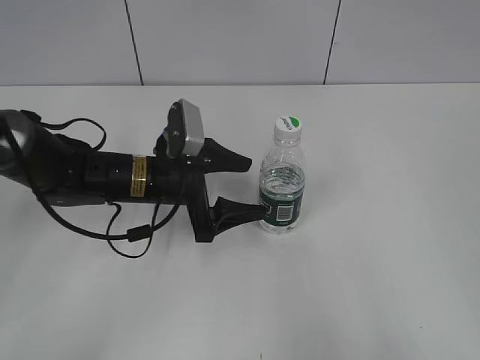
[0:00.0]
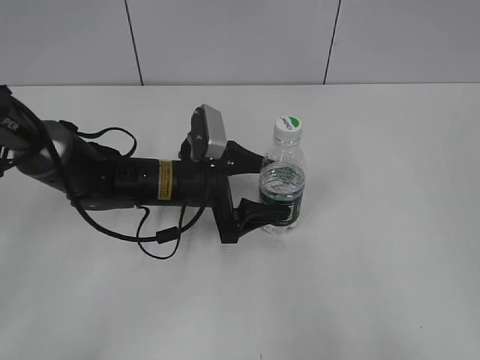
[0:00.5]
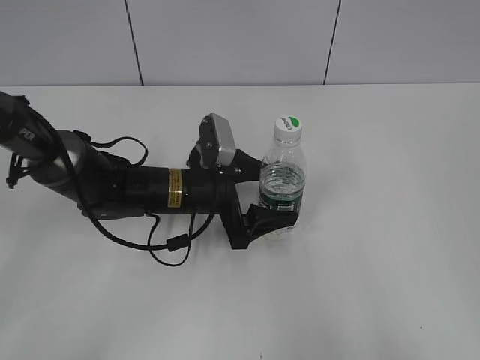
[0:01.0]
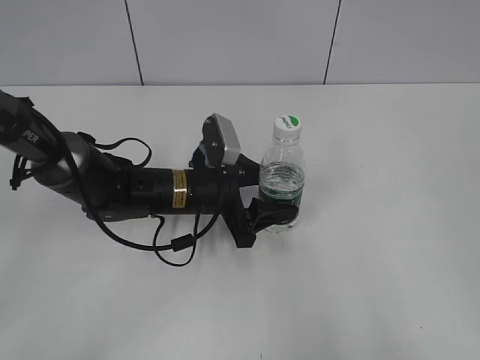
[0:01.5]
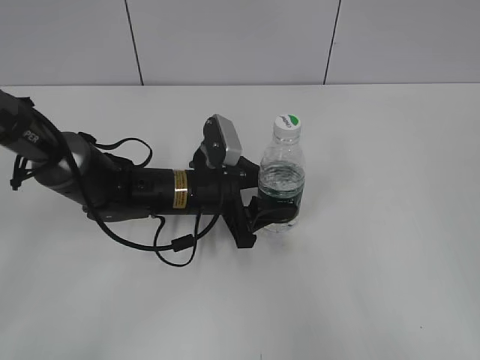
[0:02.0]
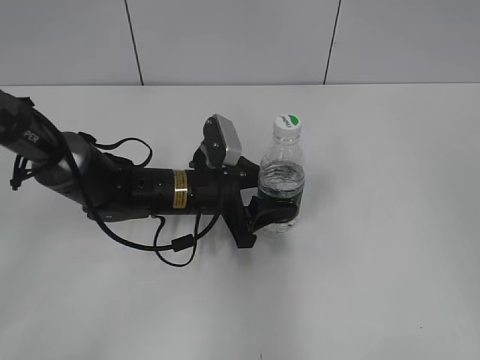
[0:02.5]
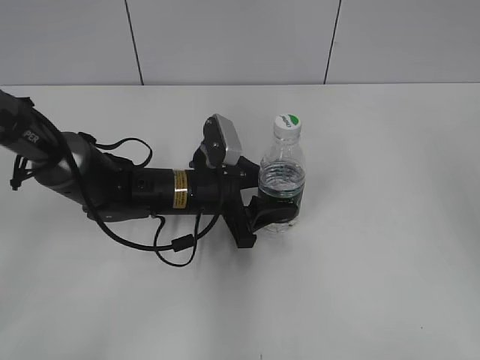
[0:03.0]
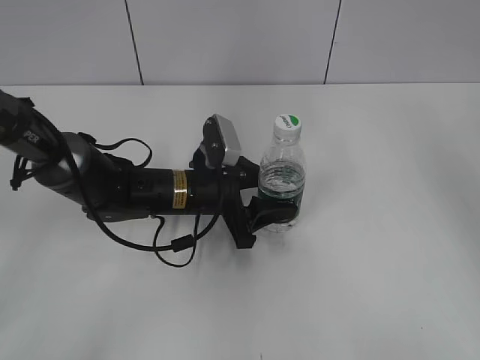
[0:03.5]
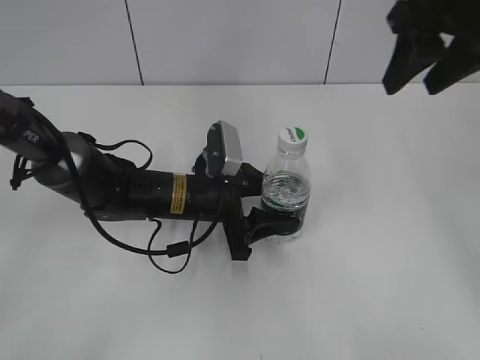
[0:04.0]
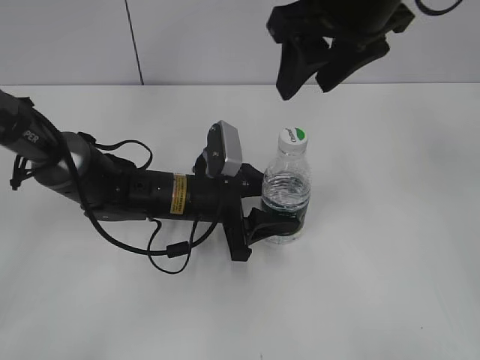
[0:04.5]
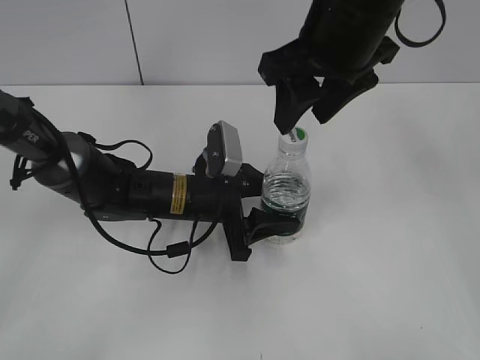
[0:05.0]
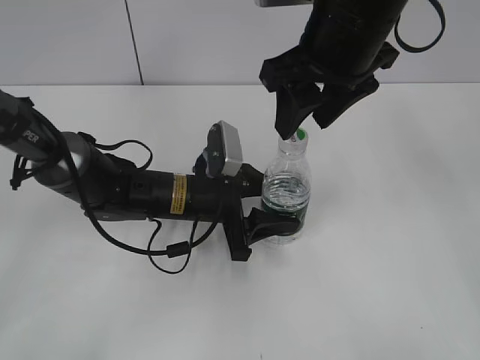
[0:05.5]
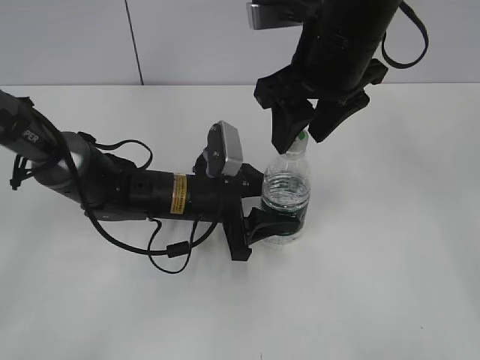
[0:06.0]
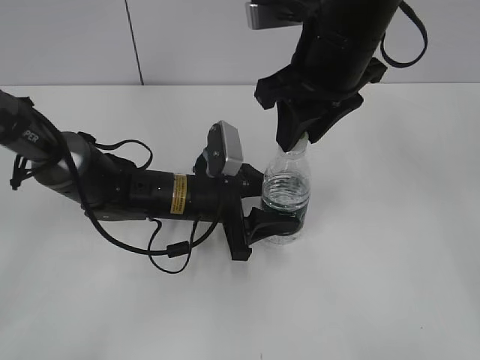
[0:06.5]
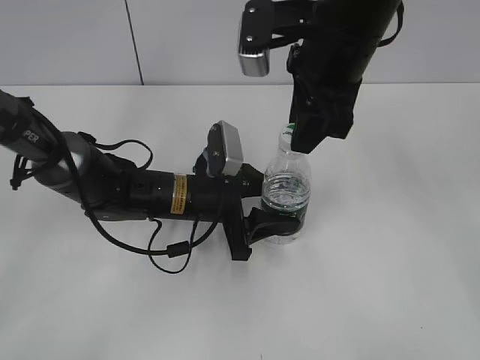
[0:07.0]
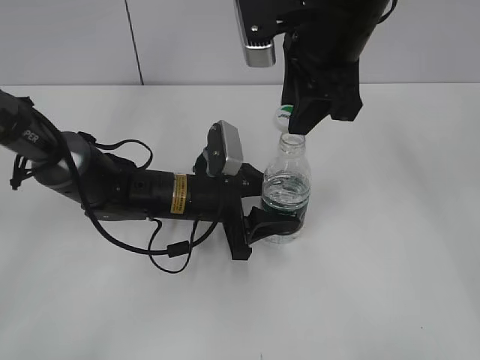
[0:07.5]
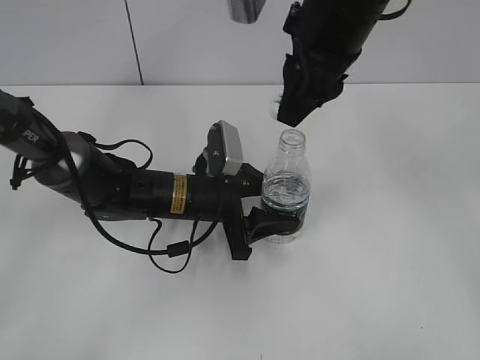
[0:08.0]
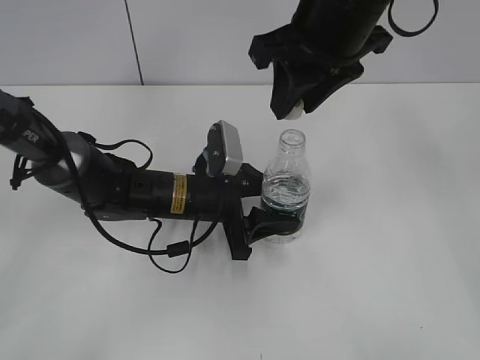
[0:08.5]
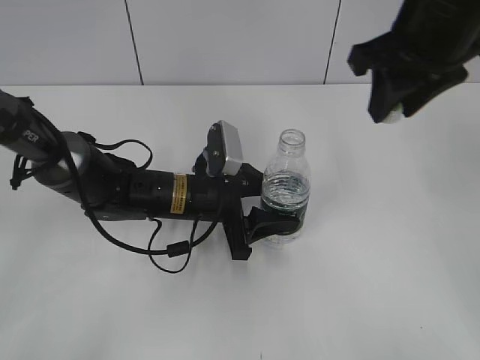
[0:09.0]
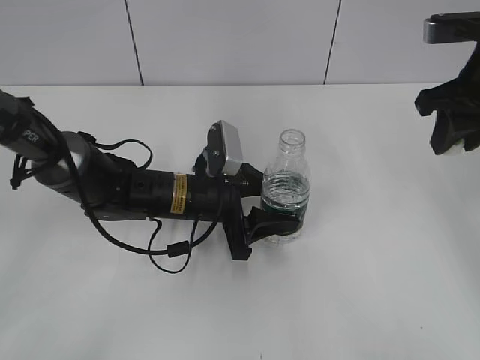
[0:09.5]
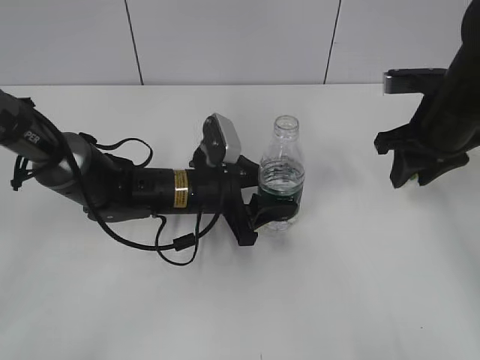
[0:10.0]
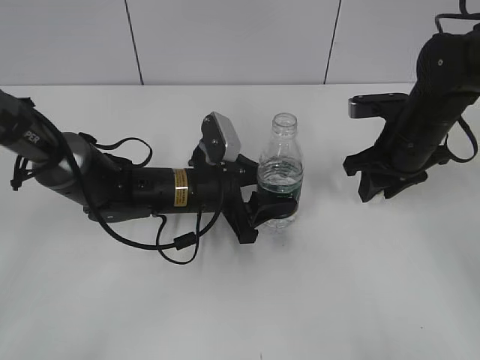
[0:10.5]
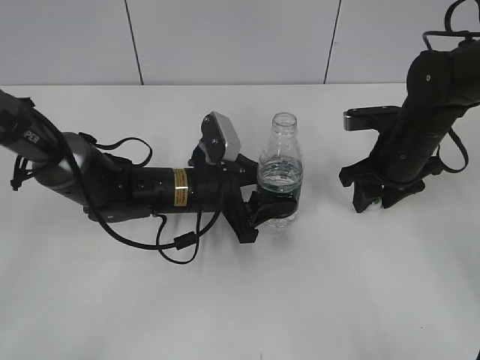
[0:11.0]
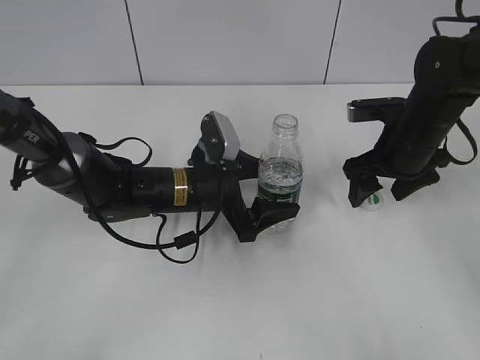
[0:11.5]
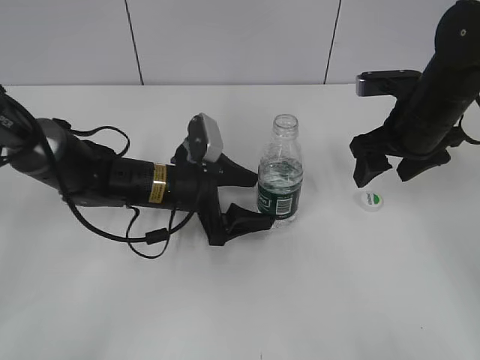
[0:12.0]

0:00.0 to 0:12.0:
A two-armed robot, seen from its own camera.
Step, 0:02.0 to 0:07.5: Unscrew the bottle cap with the right gripper while holding the bottle with the left gripper.
Step, 0:08.0 to 0:11.0: Place the bottle cap on the table with the right gripper.
0:00.0 to 0:02.0: The left gripper changes place by approximately 5 cm, and closes its fingers.
0:02.0 to 0:04.0: The right gripper heads forward, covering about 35 cm.
0:04.0 to 0:06.0: The right gripper heads to the left and downward, covering roughly 15 cm.
0:06.0 to 0:08.0: The right gripper closes up.
0:08.0 to 0:10.0: The right gripper travels to the right and downward by approximately 20 cm.
0:10.0 to 0:12.0: The left gripper opens up, while the right gripper opens its fingers.

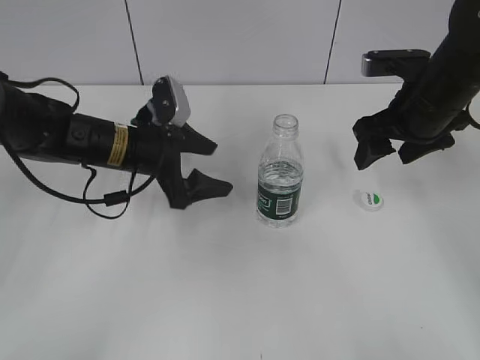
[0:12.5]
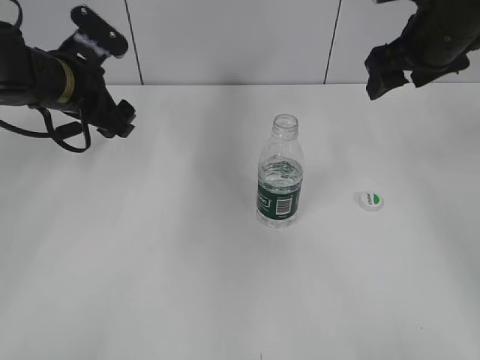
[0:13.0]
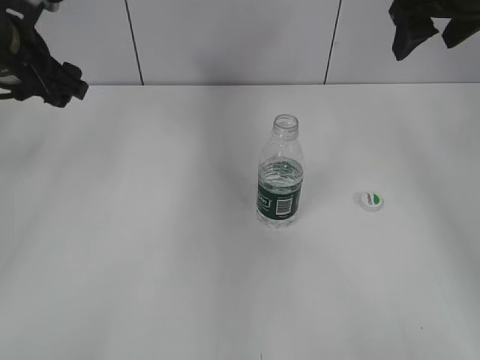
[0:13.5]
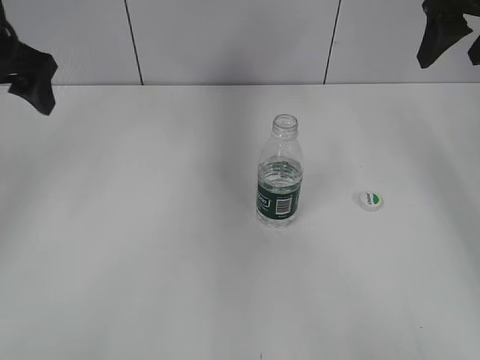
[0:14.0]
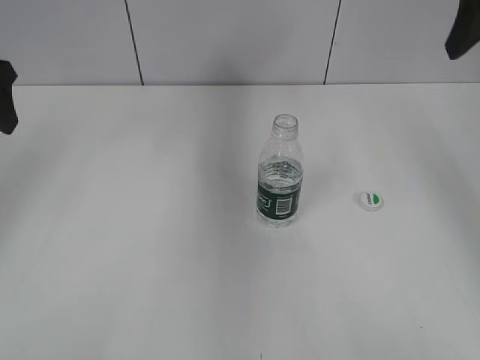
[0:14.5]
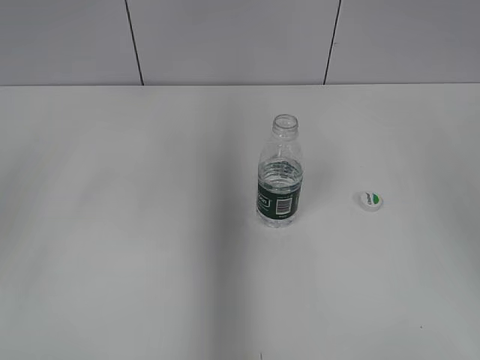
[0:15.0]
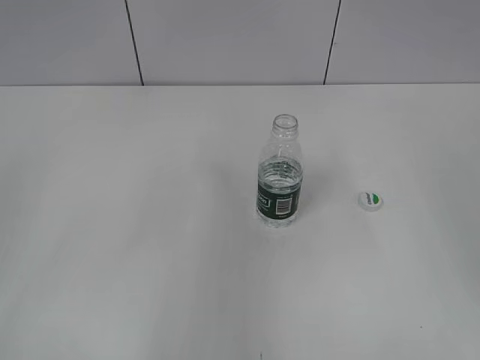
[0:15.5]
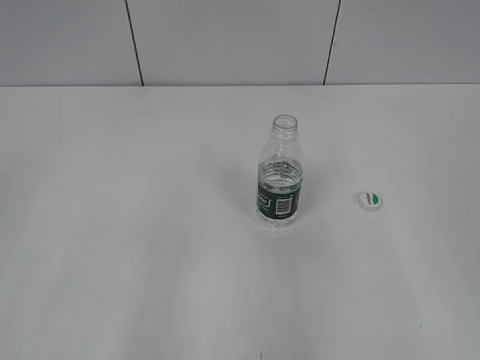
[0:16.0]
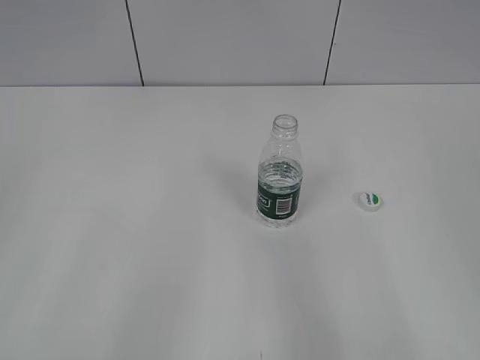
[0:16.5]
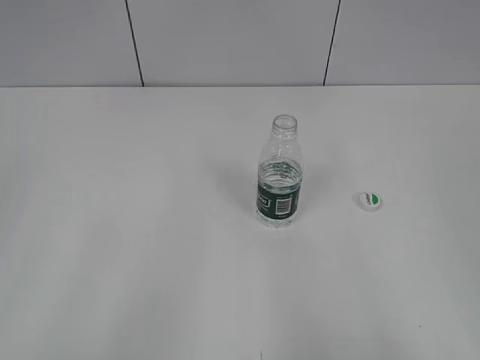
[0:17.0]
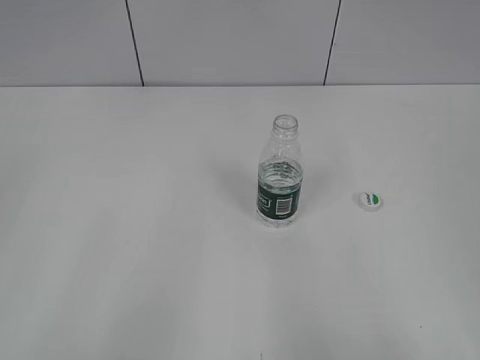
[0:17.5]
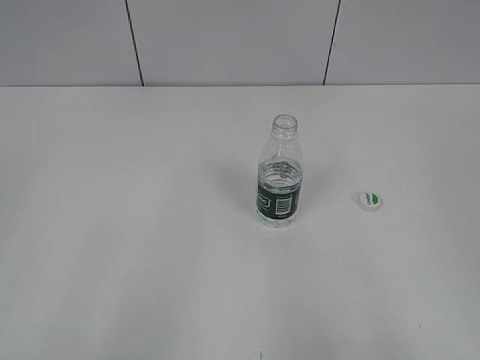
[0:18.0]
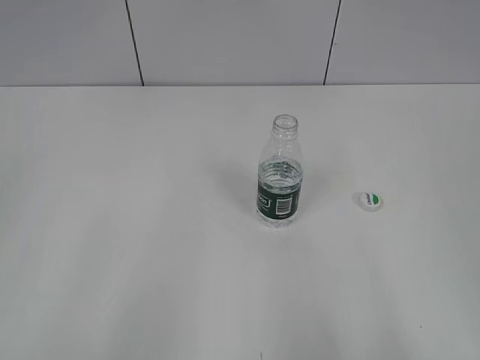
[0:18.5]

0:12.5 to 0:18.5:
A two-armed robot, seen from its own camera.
0:12.5 to 0:14.5: The left gripper is displaced upward and to the left by approximately 25 cm, while the right gripper goes roughly 15 cm upward.
0:14.5 to 0:16.5: Both grippers move backward, roughly 30 cm.

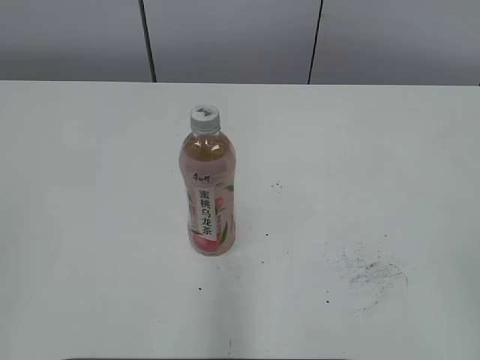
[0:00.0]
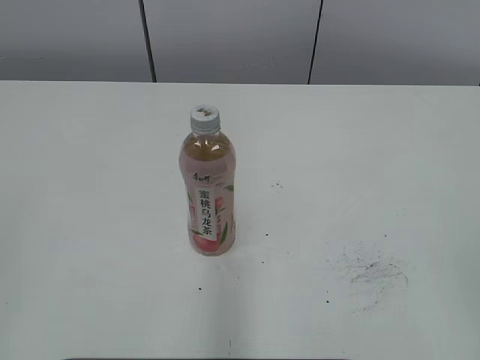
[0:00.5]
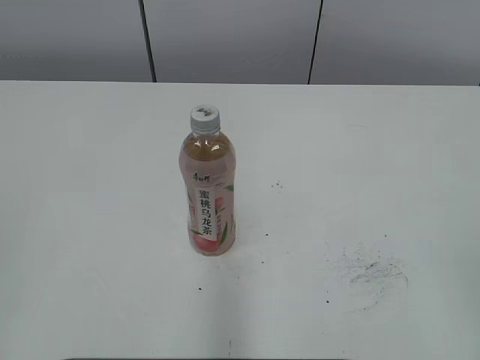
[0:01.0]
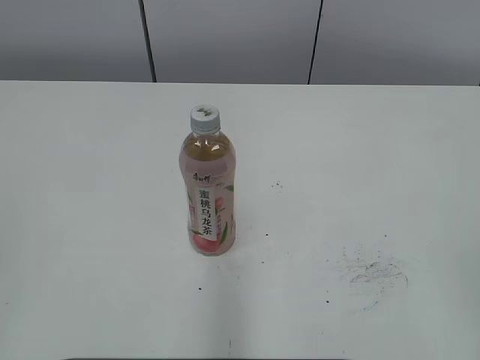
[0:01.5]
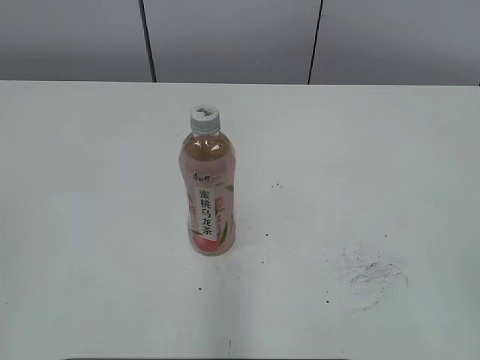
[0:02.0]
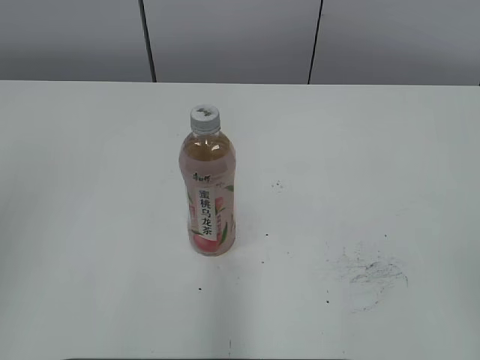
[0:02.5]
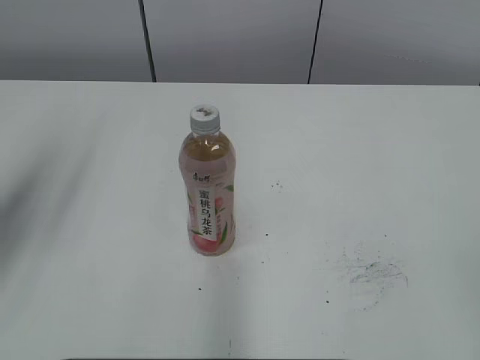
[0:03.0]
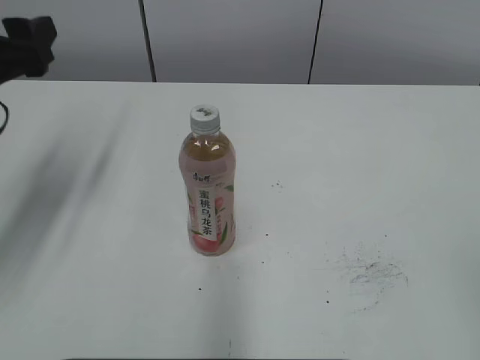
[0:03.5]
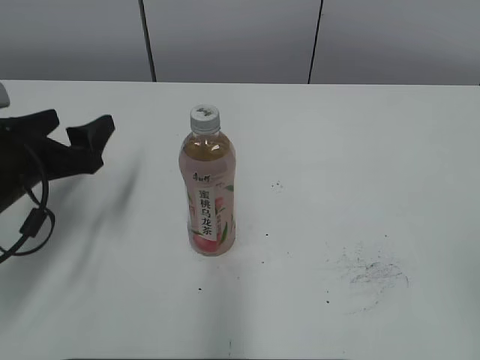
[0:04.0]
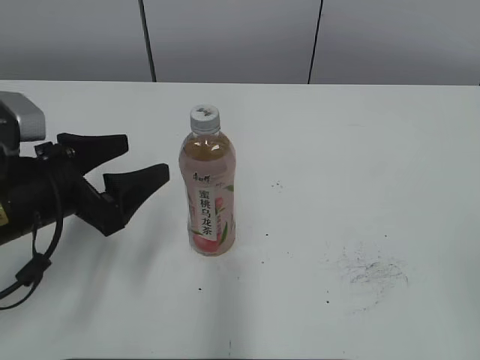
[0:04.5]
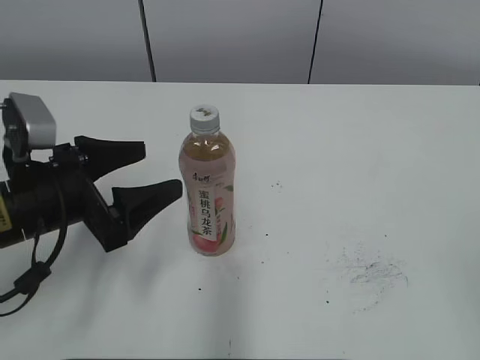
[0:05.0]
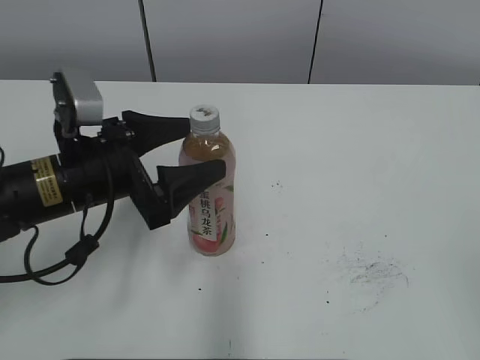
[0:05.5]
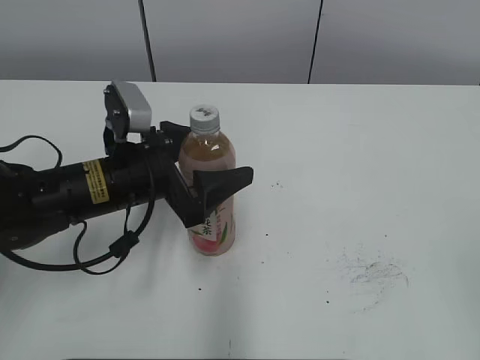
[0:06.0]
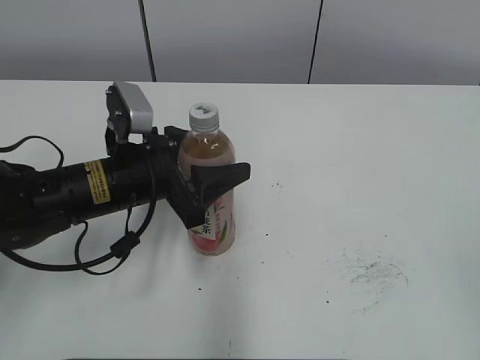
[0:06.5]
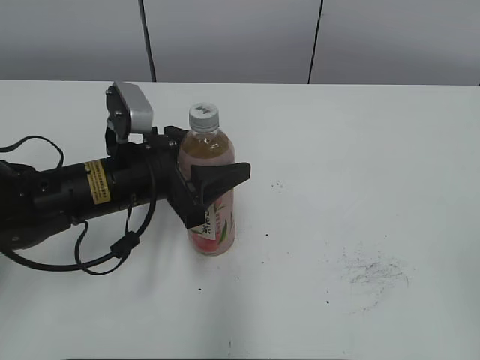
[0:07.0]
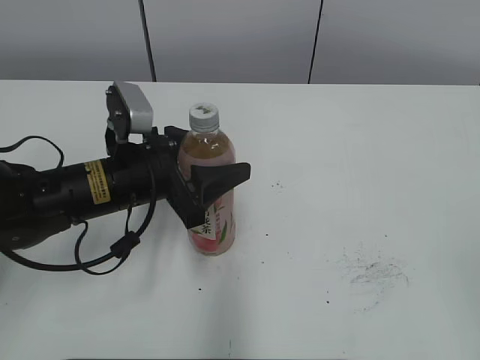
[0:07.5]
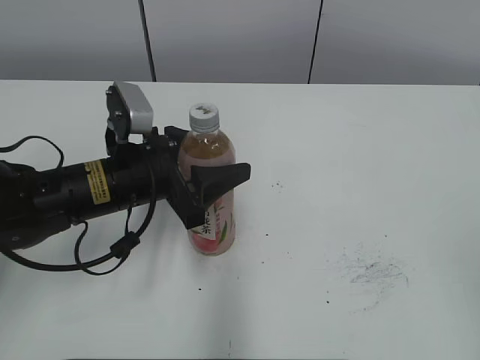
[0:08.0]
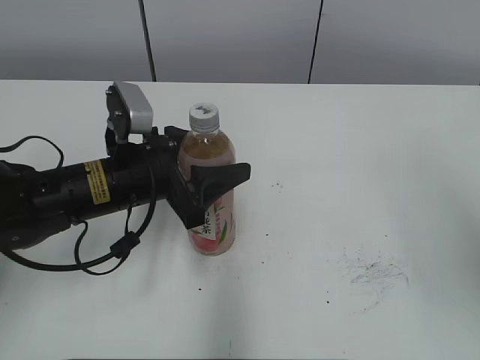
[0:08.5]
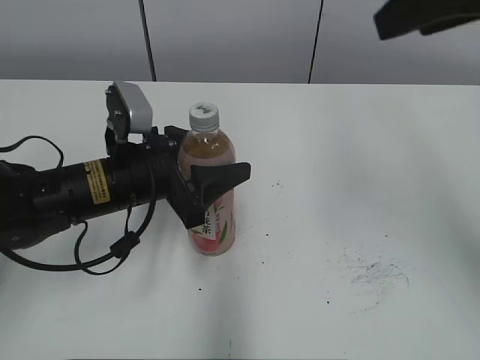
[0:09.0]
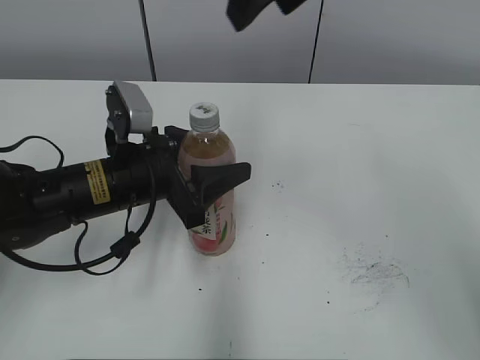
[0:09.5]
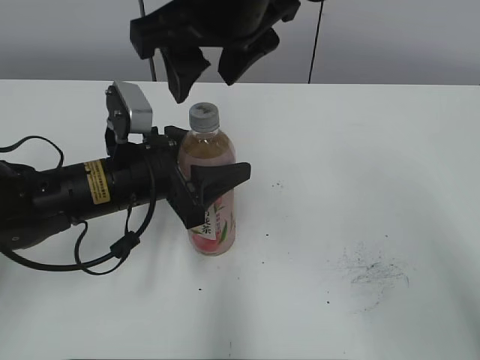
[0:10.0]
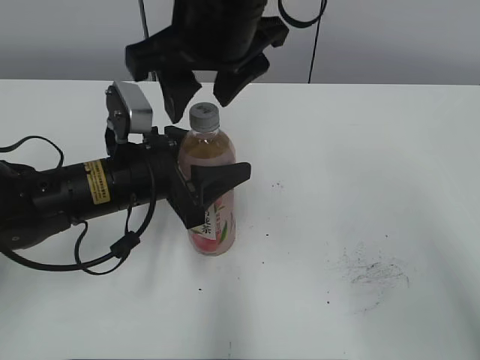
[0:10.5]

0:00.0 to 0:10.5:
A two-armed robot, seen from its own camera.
Step, 0:00.0 to 0:06.0: Grab the Peach Oolong Tea with the left hand.
0:02.0 to 0:04.0: The left gripper heads forward and downward, covering some 30 cm, and opens.
0:04.0 to 0:06.5: The left gripper heads to the right, covering about 10 cm, and closes its fingers.
0:08.5 to 0:10.5: The right gripper goes roughly 35 cm to the left and forward.
